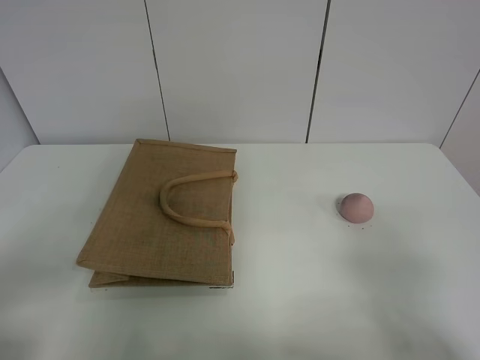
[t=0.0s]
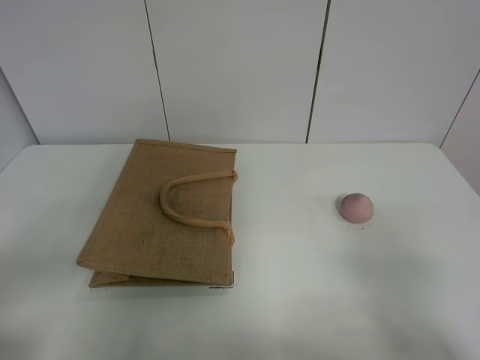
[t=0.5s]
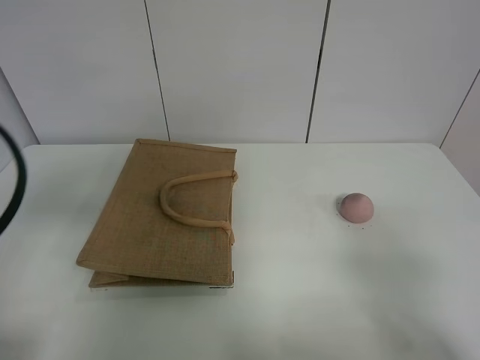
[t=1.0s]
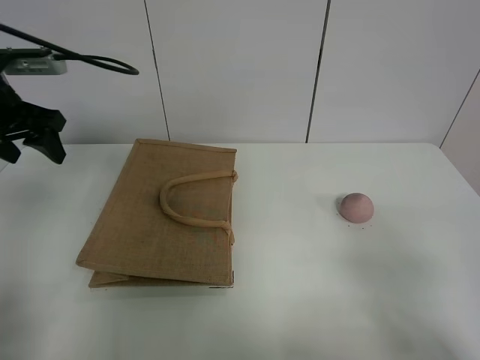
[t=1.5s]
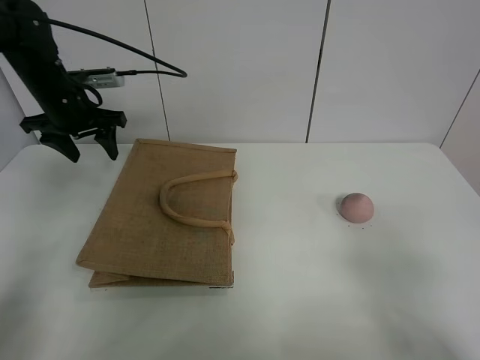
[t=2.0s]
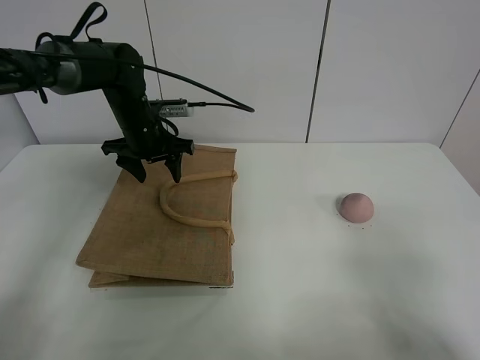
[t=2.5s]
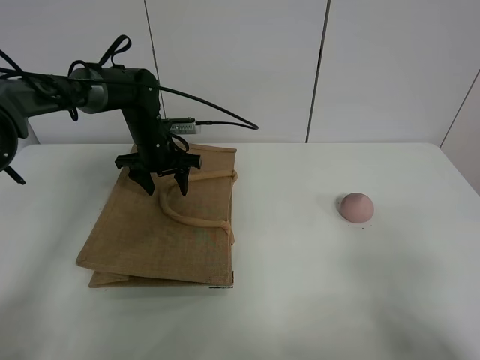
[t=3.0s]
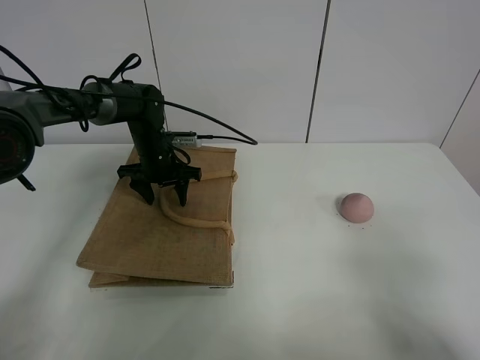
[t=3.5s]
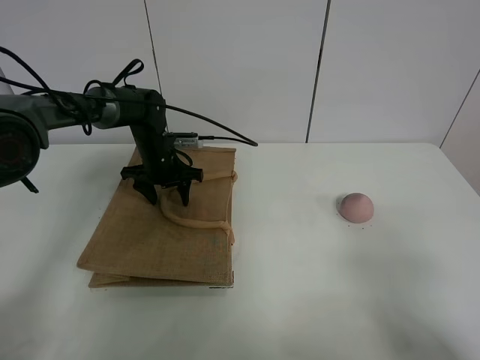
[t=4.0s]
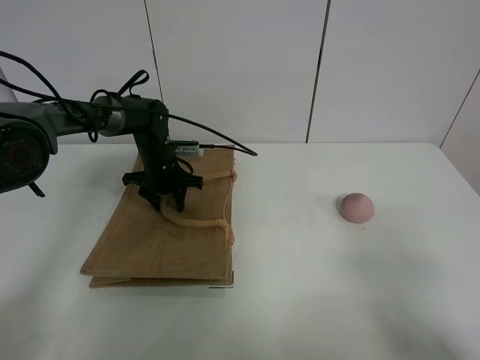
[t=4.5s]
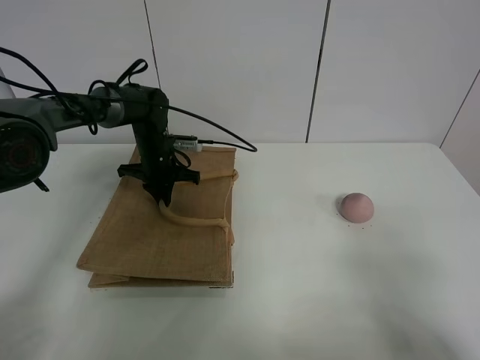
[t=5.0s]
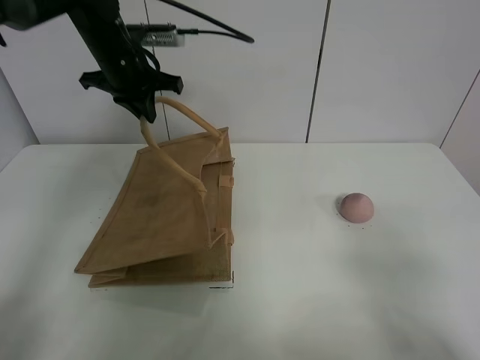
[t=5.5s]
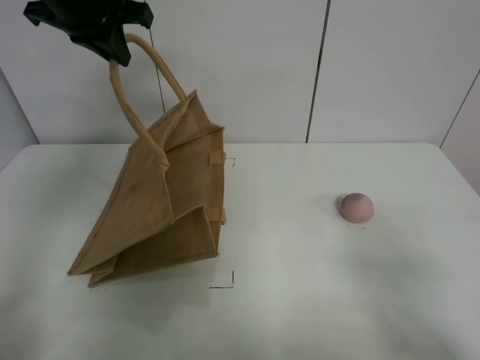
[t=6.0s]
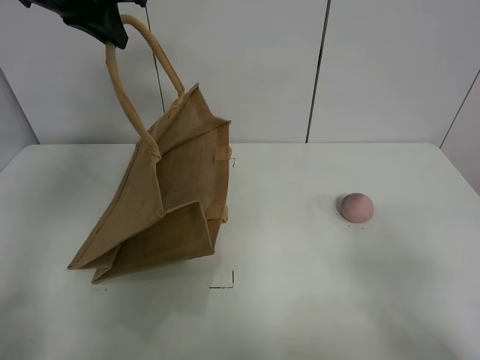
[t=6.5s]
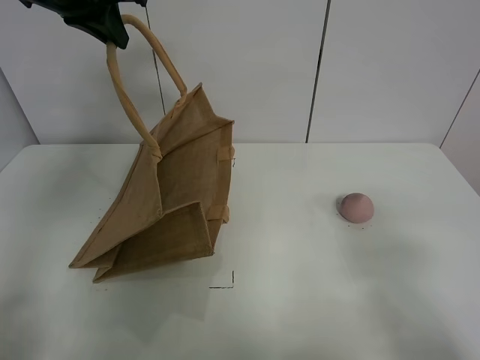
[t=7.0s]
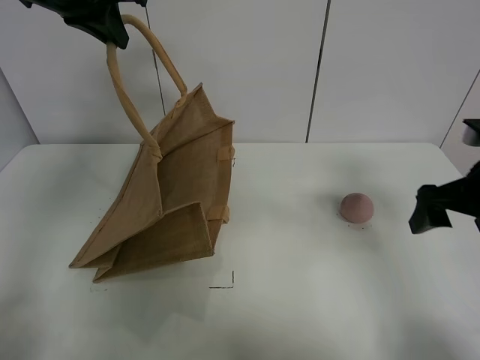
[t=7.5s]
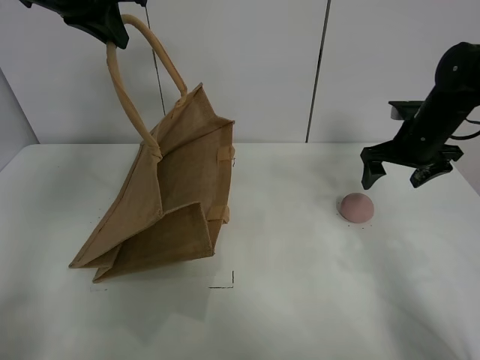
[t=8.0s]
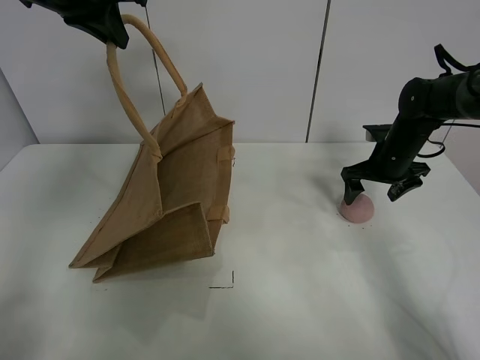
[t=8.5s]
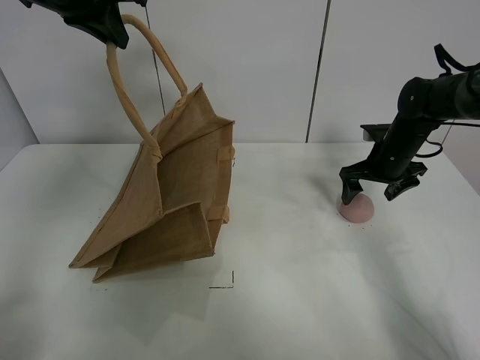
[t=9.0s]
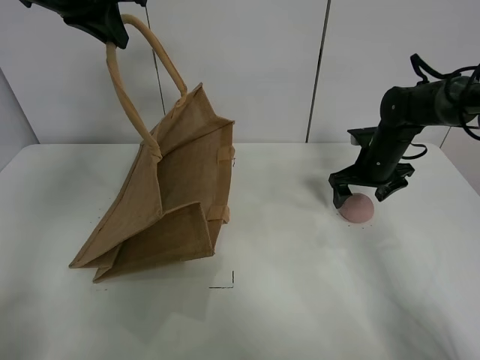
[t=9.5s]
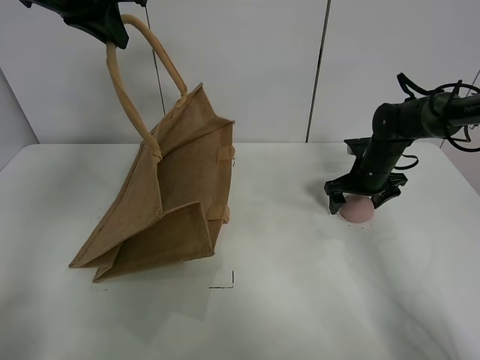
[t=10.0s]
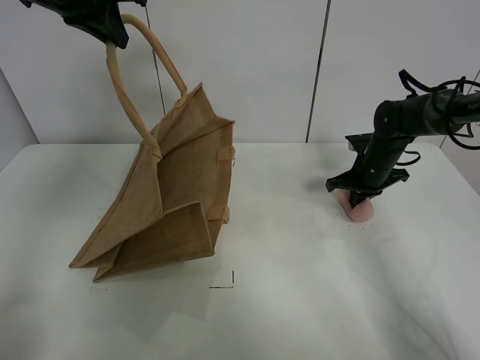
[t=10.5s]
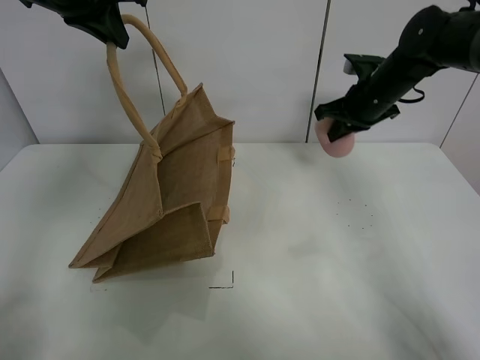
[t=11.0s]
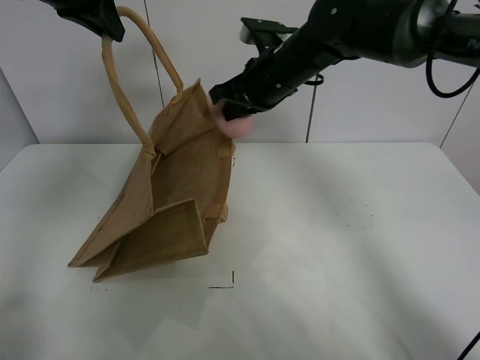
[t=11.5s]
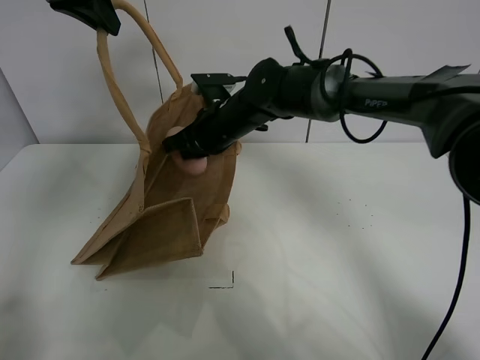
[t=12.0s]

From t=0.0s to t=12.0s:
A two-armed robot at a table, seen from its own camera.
Task of the whole recording: open the brown linen bag and put the peach in the bag.
Step, from t=0.0s to t=6.0s: Lift the handbag with left gripper.
Step, from t=6.5s to t=10.5s: Grasp the peach with right gripper.
From t=0.0s to t=2.0s: The left gripper travels forward by roughly 40 cm.
From t=2.0s to t=4.0s: The left gripper heads downward and to the right, covering approximately 15 cm.
From t=4.0s to t=6.0s: The left gripper shifts about 30 cm upward, and closes its fingers.
From t=6.0s to t=8.0s: The right gripper is displaced forward by about 40 cm.
From t=8.0s to t=10.0s: The right gripper moves downward, approximately 10 cm.
From t=10.0s to t=12.0s: The right gripper goes about 25 cm to the left, and closes.

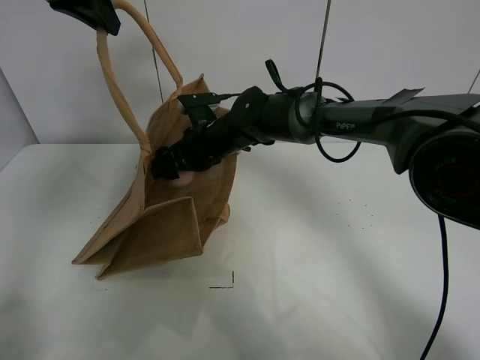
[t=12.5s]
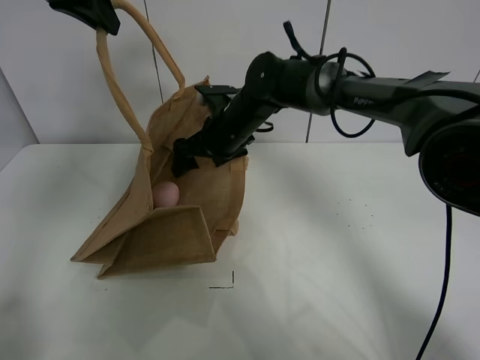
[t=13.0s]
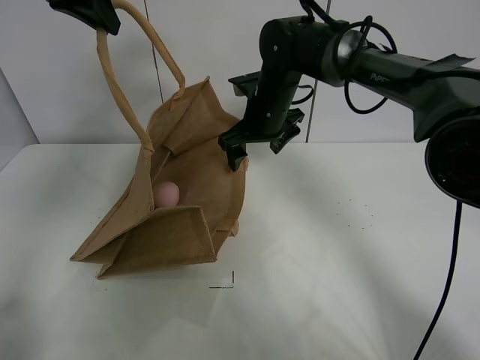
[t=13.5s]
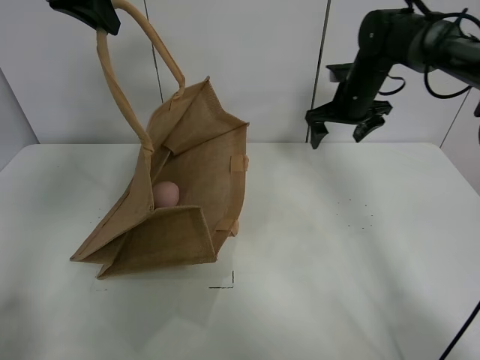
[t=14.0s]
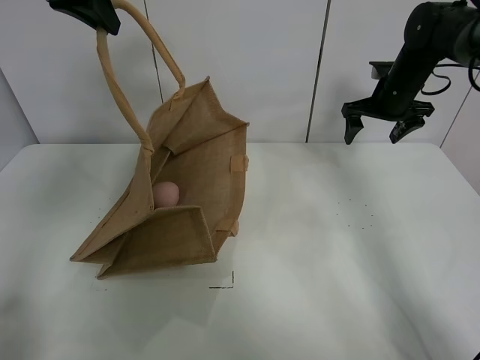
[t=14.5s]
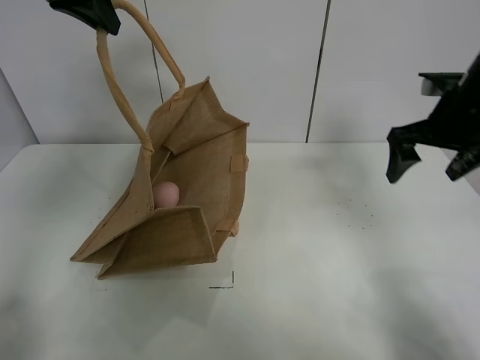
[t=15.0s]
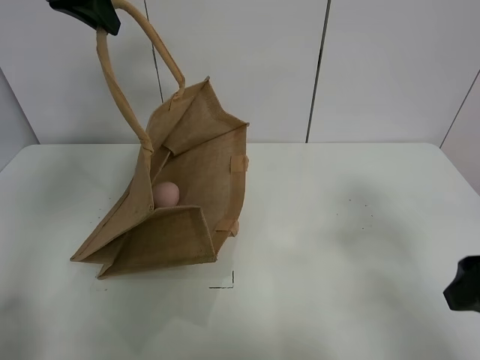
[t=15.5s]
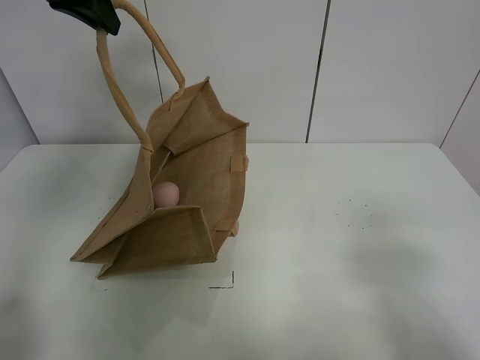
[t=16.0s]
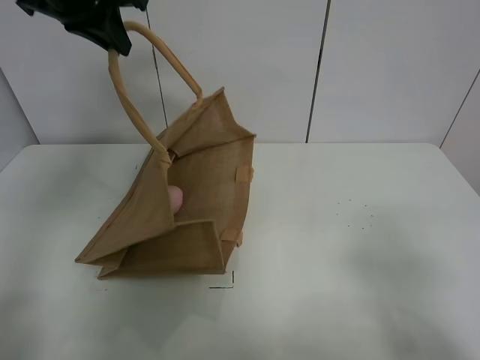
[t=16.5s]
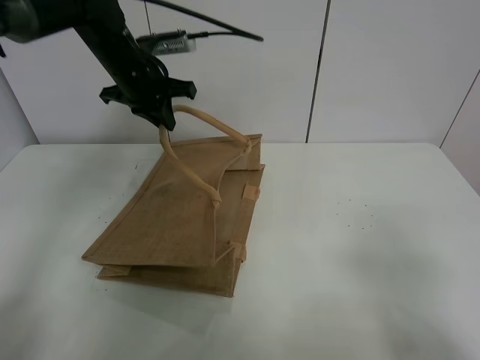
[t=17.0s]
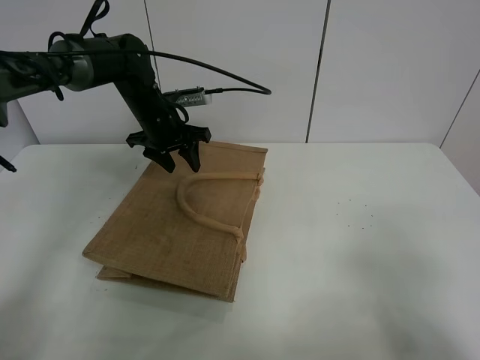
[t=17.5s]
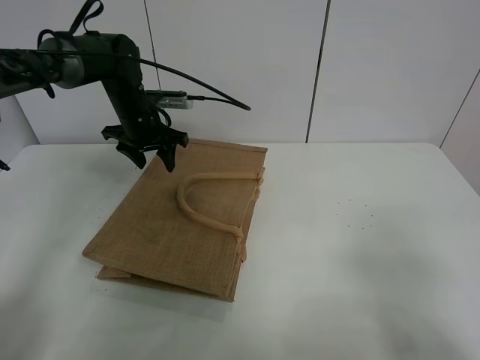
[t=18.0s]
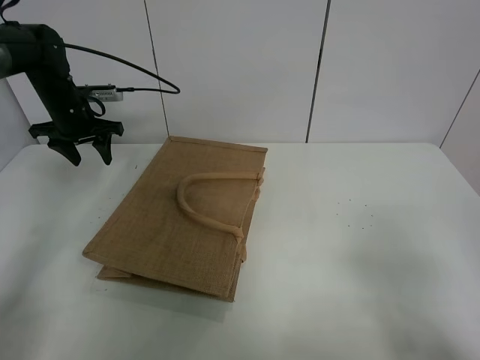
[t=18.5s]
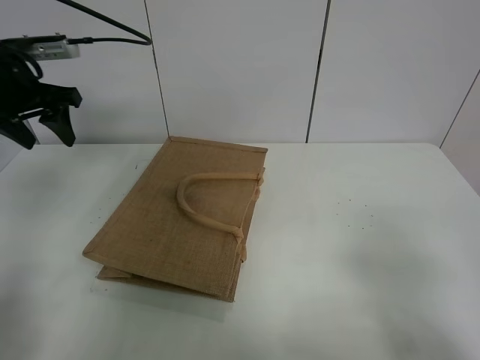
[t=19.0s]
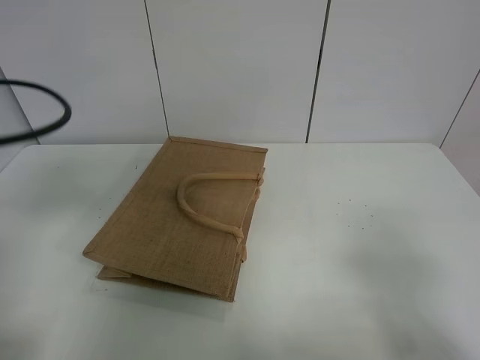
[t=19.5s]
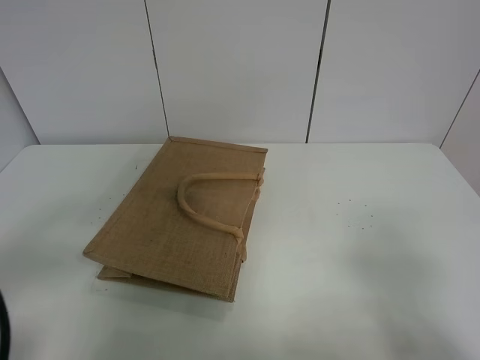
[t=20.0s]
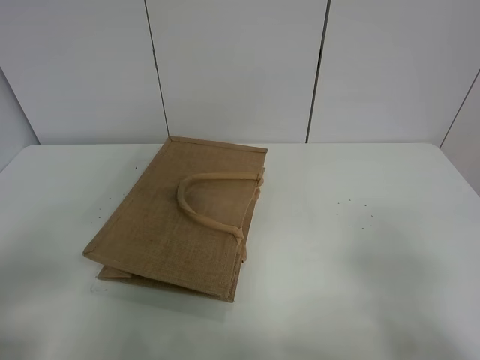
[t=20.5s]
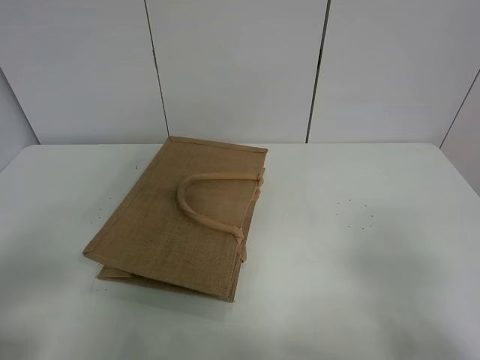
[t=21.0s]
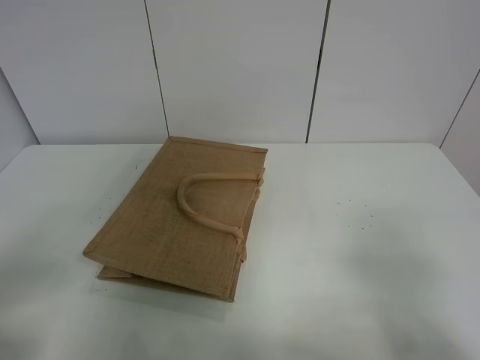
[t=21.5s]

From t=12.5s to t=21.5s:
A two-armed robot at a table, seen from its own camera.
Task of the whole recording: open the brown linen bag and put the peach in the bag.
Step, from t=14.0s to t=18.0s: Put down the handbag with left grippe.
From t=12.5s to t=14.5s: The right gripper travels to the right by about 30 cm.
From t=14.5s to t=17.0s: The right gripper heads backward, covering roughly 50 cm, while the left gripper goes about 20 cm downward and forward.
From t=17.0s to t=19.5s: The left gripper moves backward and to the left, some 35 cm, and opens up.
From t=19.5s to t=21.5s: The left gripper travels backward by some 15 cm.
